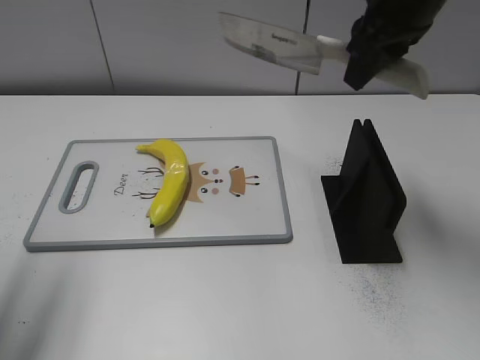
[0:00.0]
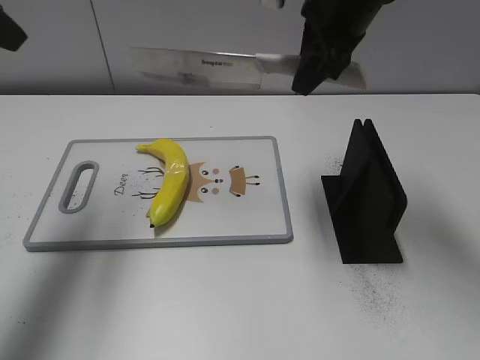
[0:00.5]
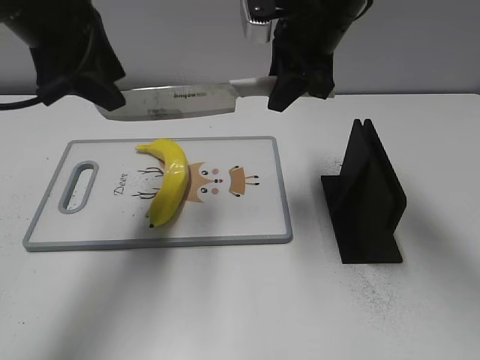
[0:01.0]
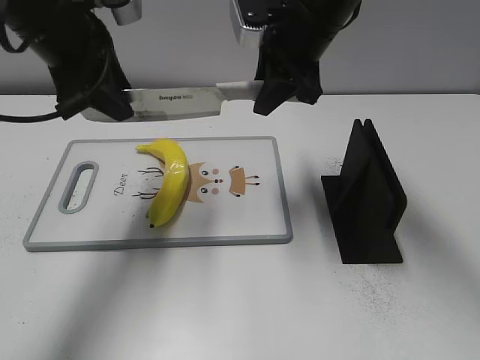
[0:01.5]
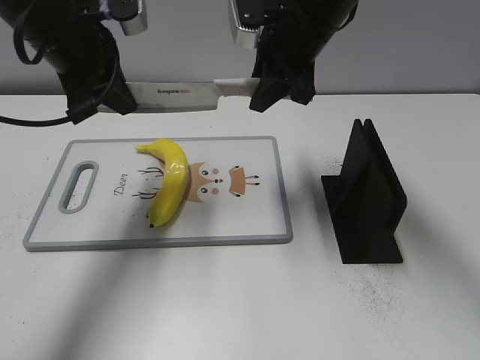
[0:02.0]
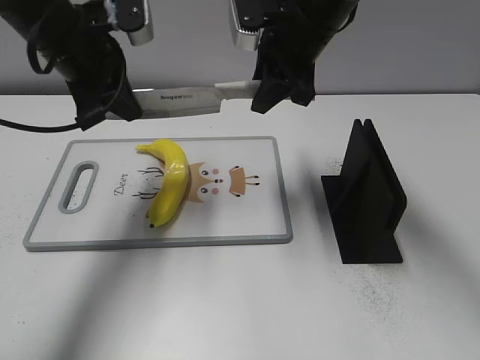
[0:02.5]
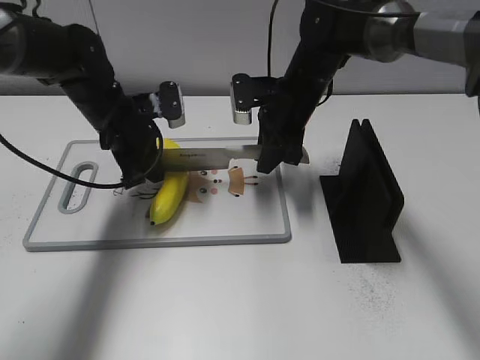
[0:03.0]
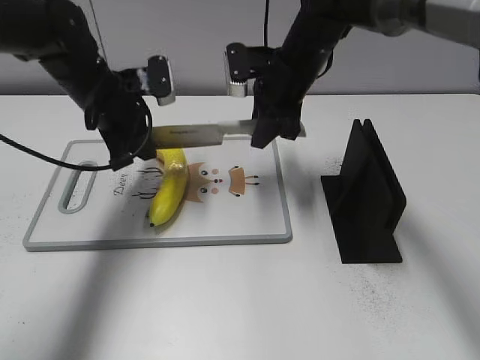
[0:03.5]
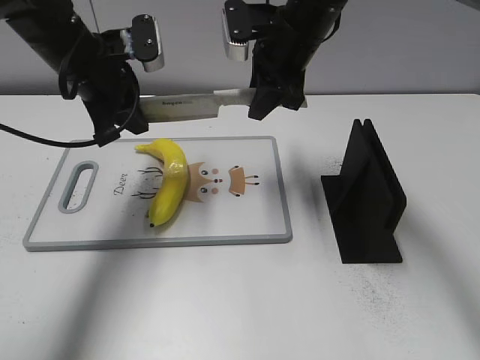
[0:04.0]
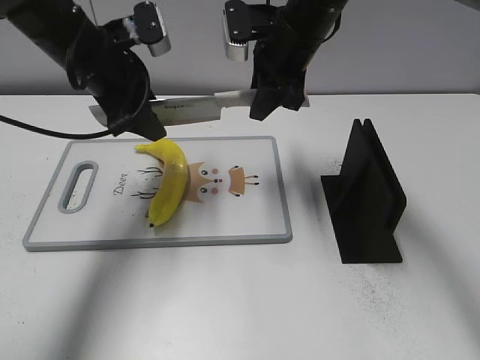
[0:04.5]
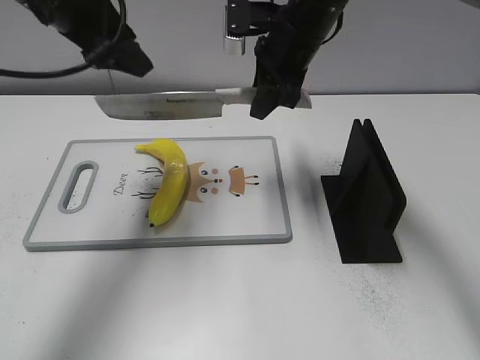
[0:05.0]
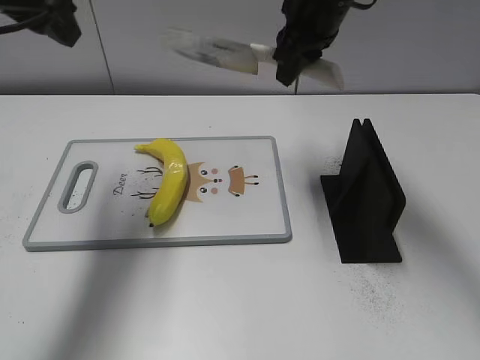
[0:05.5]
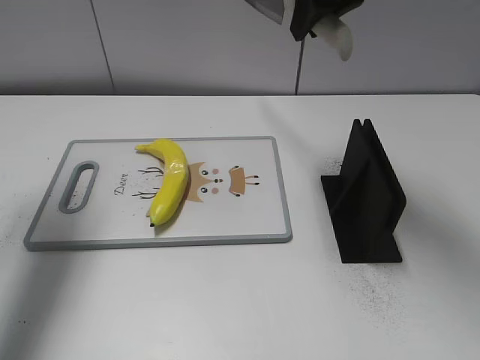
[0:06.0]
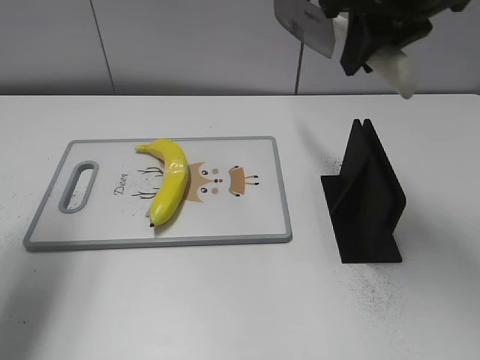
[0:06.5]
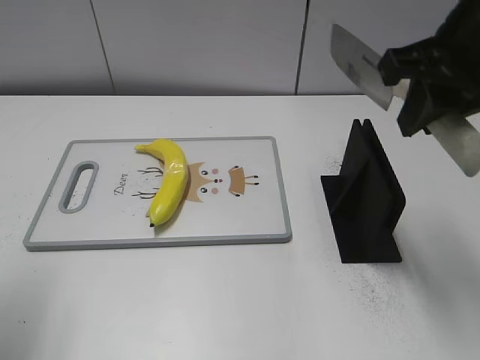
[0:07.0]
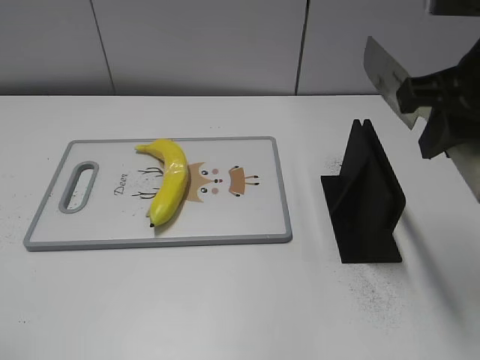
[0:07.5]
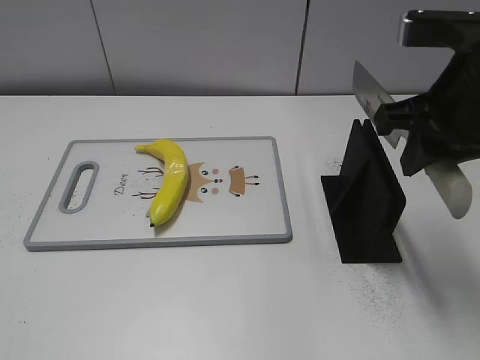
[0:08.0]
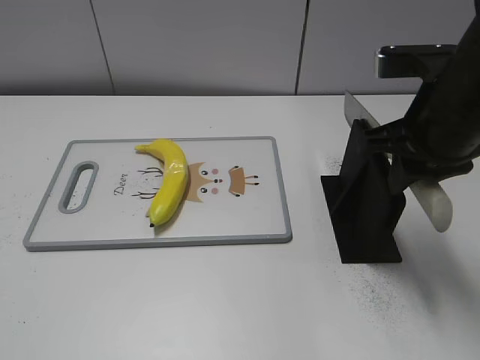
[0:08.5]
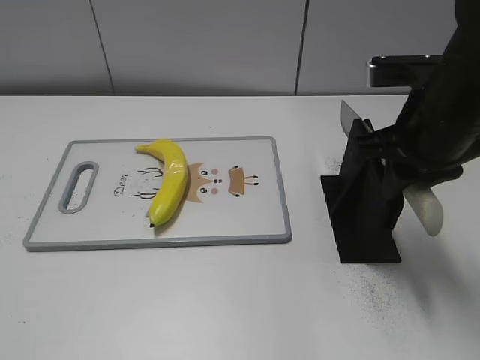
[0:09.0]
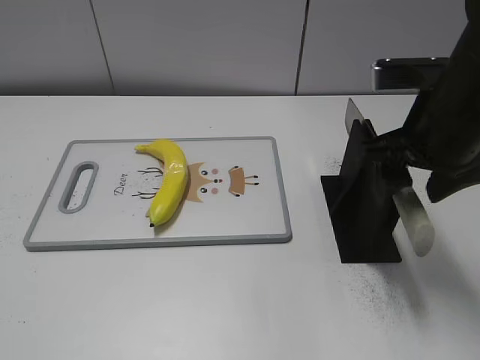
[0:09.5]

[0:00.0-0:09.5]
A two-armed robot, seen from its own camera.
Task of the whole recording: cut plastic banana.
Step, 0:00.0 to 0:04.0: Lift the knife with your right hand.
Step, 0:04.5 to 0:05.5: Cut the banana with your right hand.
Step, 0:06.0 to 0:07.0: Lift the knife with your right hand.
0:00.0 to 0:02.0: The left gripper moves forward, to the right and downward, some 20 cm, and closes. Meanwhile the right gripper goes roughly 10 cm to the left, downward and forward.
0:02.0 to 0:04.0: The left gripper heads downward, covering approximately 5 cm, while the right gripper travels downward and back again, some 10 cm each way.
0:04.0 to 0:05.5: The right gripper moves about 5 cm. The left gripper heads upward, covering roughly 10 cm, and opens up.
0:05.5 to 0:07.5: The left gripper moves backward, about 25 cm, while the right gripper travels backward and to the right by approximately 20 cm.
0:07.5 to 0:09.5: The right gripper travels downward by about 5 cm, and opens.

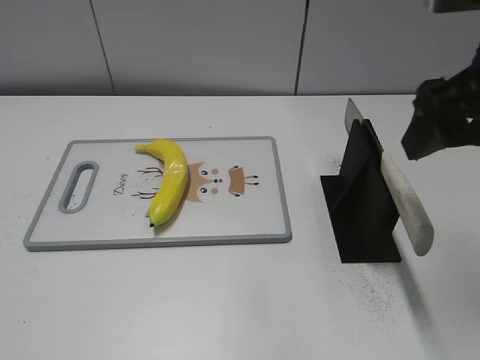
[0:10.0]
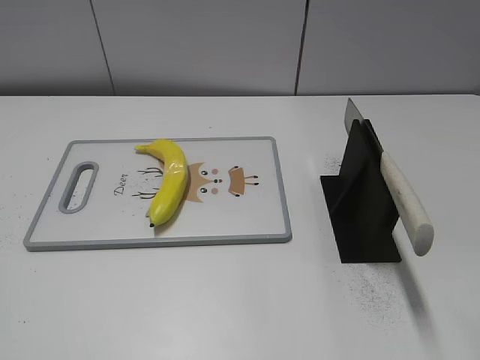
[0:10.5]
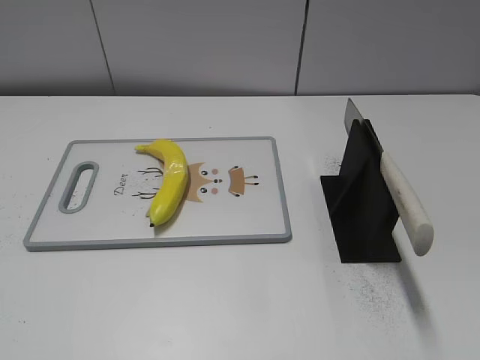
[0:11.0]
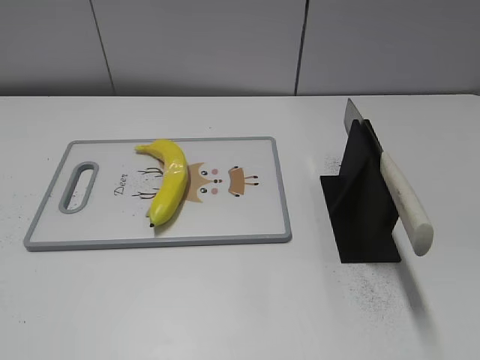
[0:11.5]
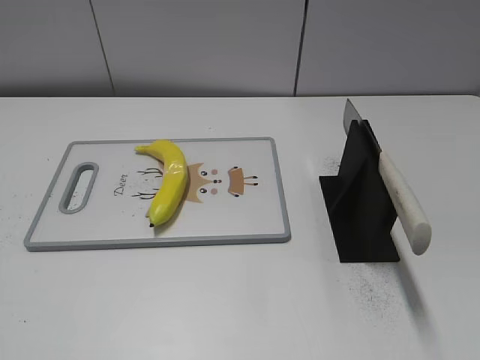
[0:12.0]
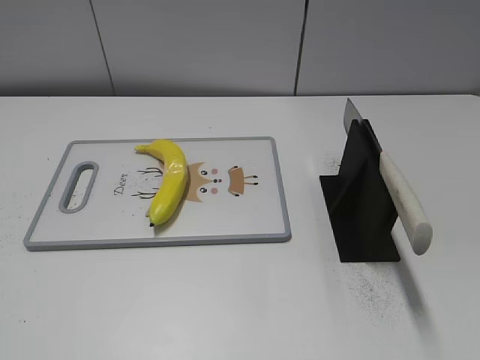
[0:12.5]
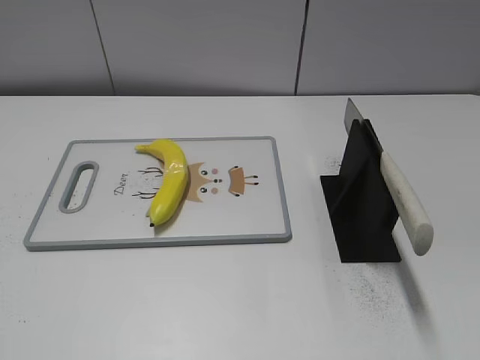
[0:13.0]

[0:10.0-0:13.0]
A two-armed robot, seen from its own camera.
Task of the whole recording: cut plastic banana.
Step, 0:10.0 to 0:13.0: Place the knife on the storage rack with your right hand.
0:10.0 to 0:11.5: The right gripper moves backward and to the right, approximately 20 cm.
